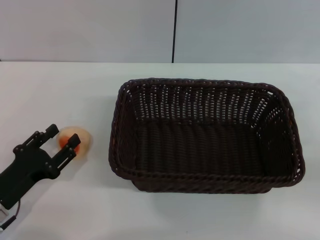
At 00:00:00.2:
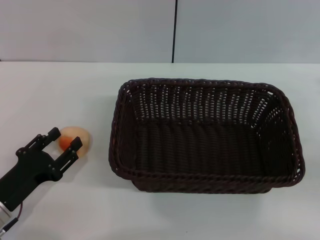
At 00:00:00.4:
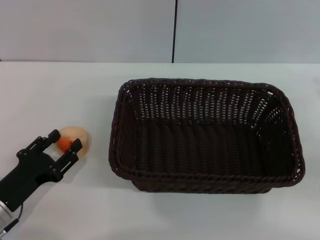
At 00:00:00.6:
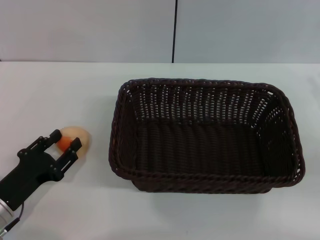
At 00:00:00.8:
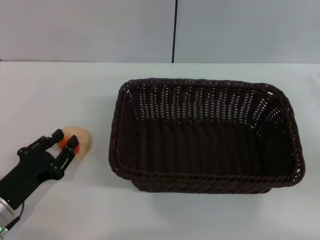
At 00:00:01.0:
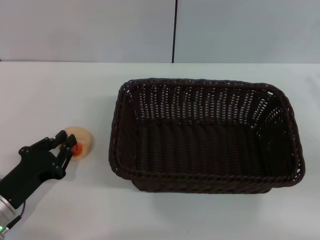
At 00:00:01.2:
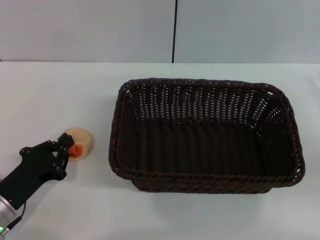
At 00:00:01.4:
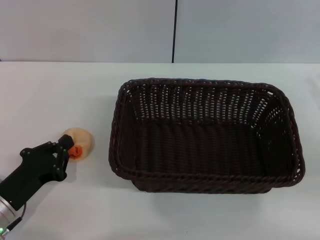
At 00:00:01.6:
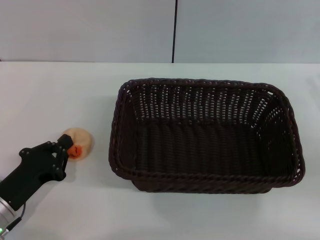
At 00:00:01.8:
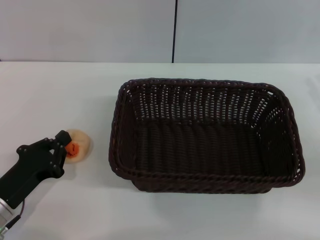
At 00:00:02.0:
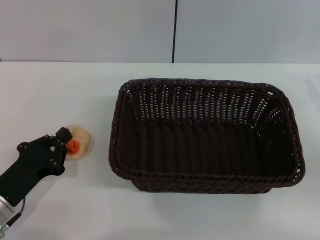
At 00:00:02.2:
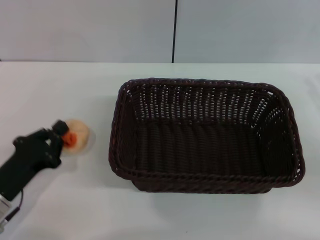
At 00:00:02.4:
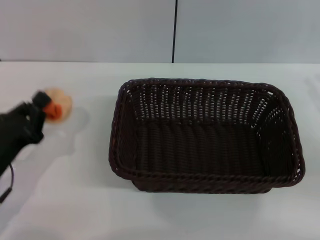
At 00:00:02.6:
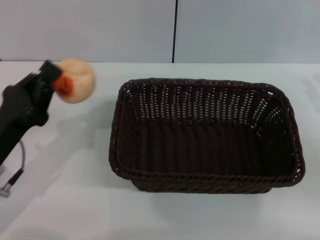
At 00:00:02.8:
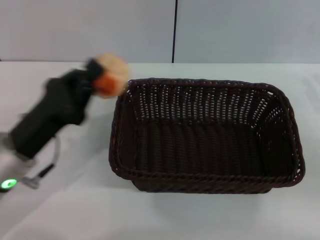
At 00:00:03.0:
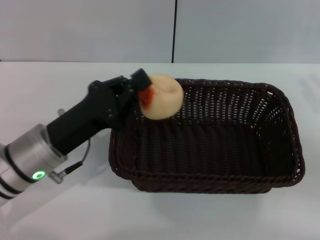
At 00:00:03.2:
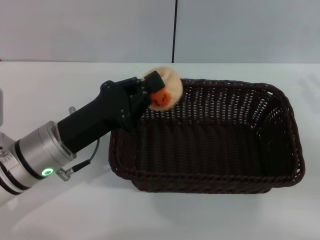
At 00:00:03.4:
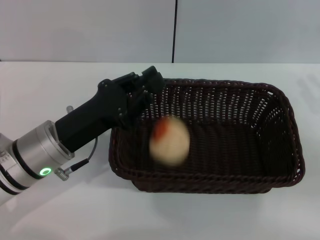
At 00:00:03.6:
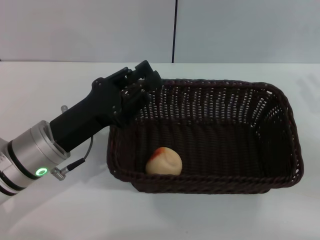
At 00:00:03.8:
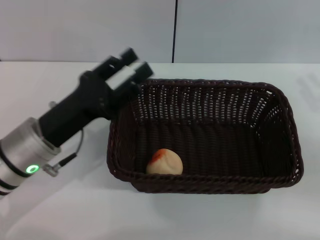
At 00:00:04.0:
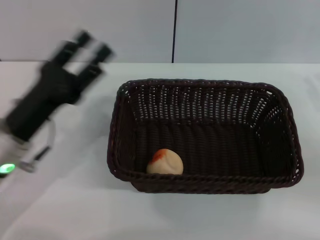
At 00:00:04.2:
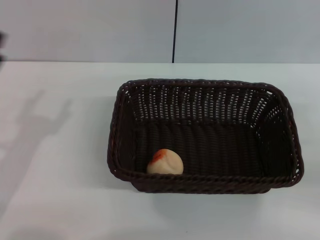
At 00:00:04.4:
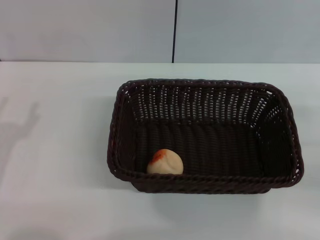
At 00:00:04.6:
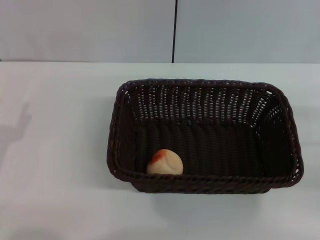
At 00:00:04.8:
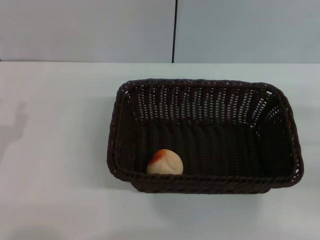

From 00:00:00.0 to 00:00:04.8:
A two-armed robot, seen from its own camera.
Step, from 00:00:00.0 to 00:00:02.2: Pick up the egg yolk pastry with the left gripper.
Step, from 00:00:02.6 to 00:00:03.4: Place the egg yolk pastry into the basket with the left gripper.
From 00:00:00.0 to 00:00:01.6: The left gripper closes its fingers.
From 00:00:01.6 to 00:00:03.2: The left gripper heads to the right, upward and forward, covering roughly 15 cm.
From 00:00:03.2 to 00:00:04.8: The left gripper travels to the left and backward by about 15 cm, and opens up.
